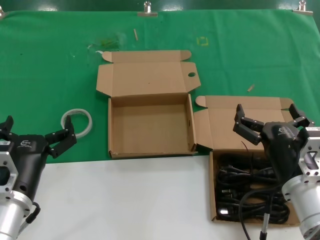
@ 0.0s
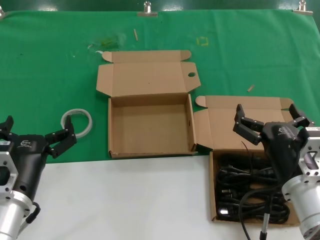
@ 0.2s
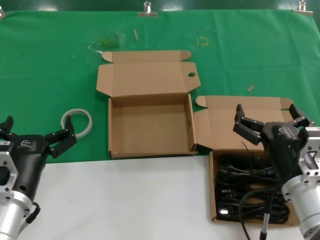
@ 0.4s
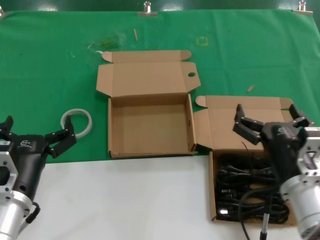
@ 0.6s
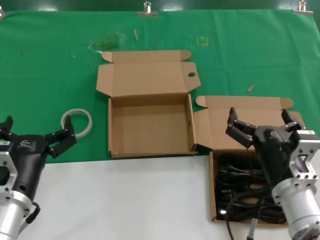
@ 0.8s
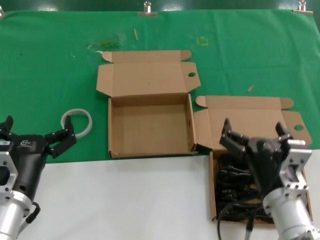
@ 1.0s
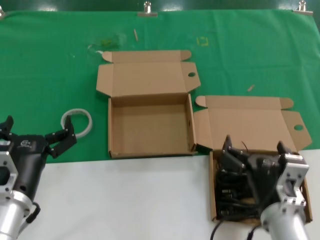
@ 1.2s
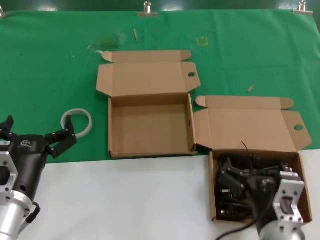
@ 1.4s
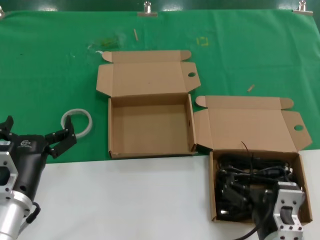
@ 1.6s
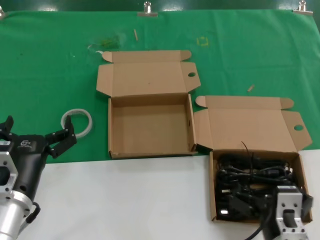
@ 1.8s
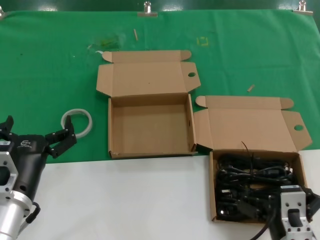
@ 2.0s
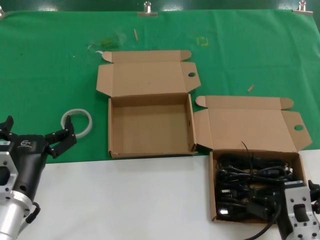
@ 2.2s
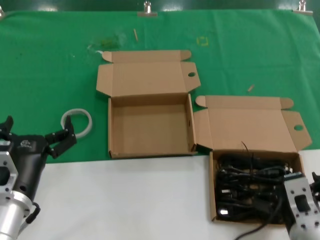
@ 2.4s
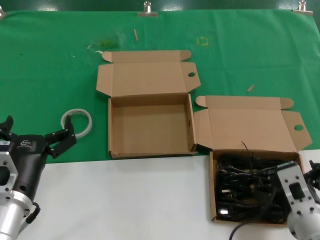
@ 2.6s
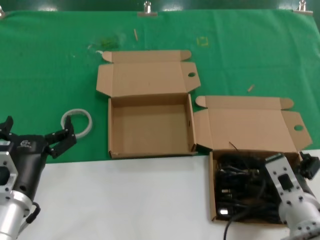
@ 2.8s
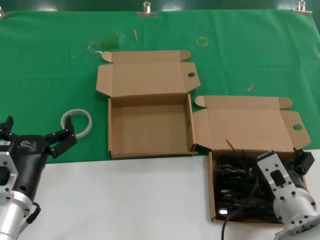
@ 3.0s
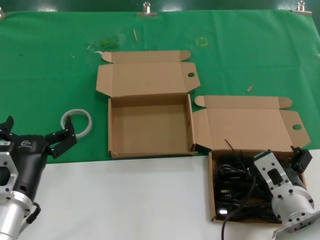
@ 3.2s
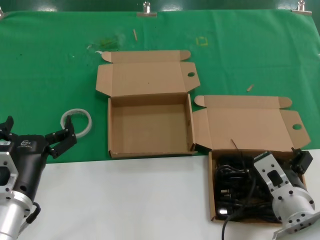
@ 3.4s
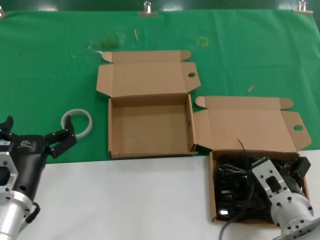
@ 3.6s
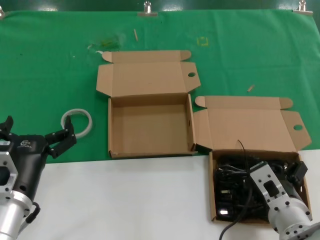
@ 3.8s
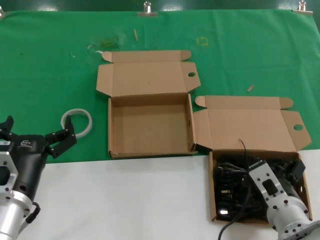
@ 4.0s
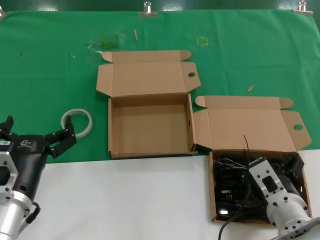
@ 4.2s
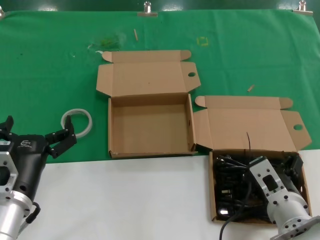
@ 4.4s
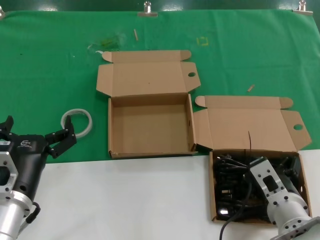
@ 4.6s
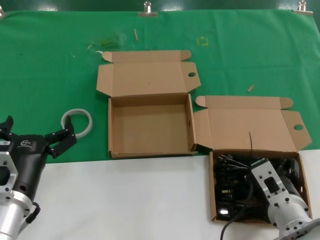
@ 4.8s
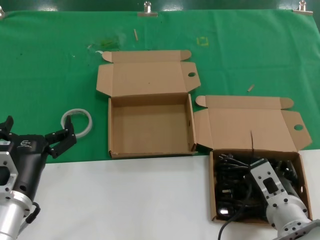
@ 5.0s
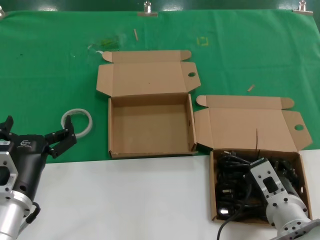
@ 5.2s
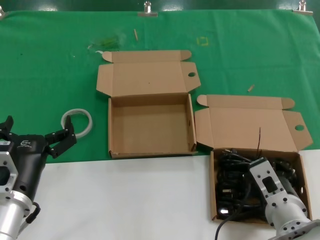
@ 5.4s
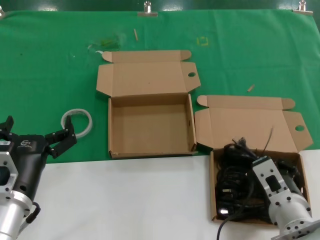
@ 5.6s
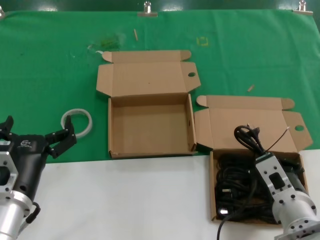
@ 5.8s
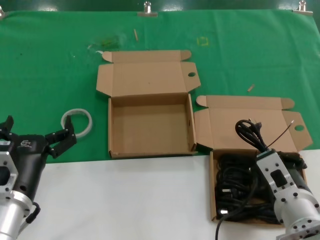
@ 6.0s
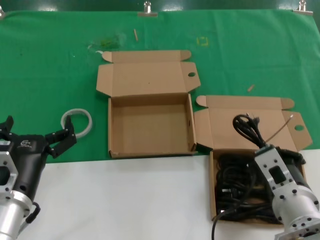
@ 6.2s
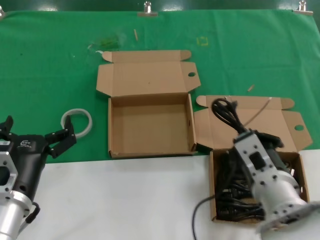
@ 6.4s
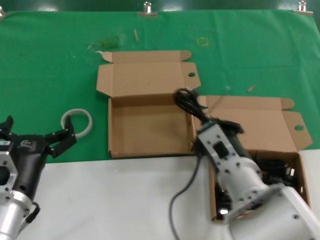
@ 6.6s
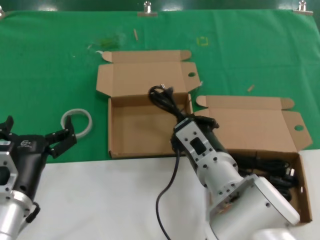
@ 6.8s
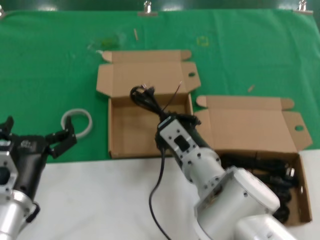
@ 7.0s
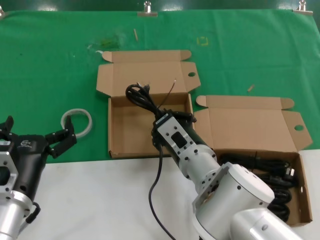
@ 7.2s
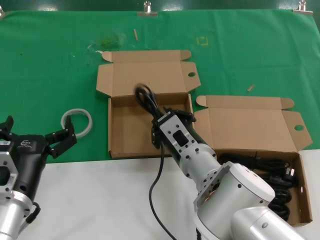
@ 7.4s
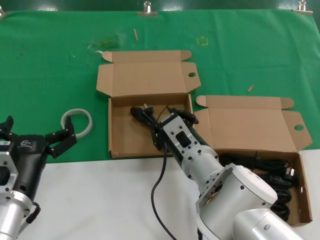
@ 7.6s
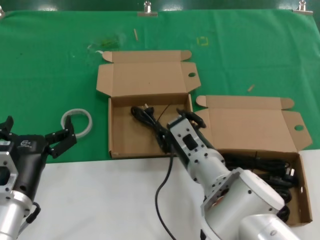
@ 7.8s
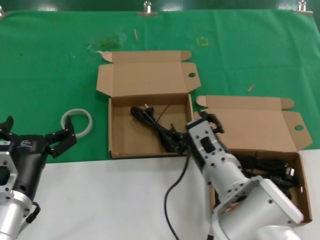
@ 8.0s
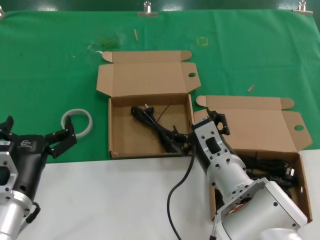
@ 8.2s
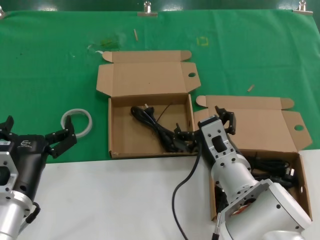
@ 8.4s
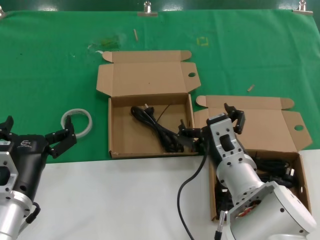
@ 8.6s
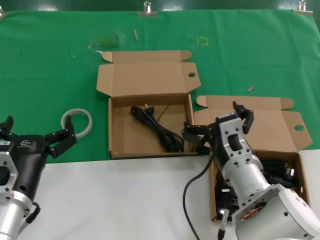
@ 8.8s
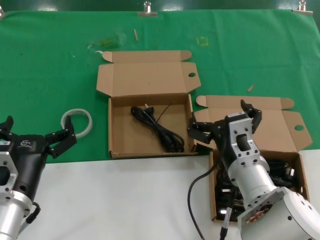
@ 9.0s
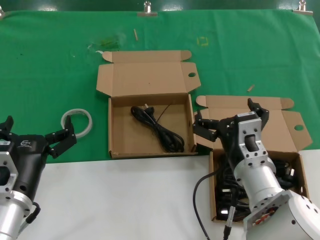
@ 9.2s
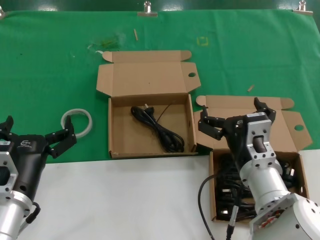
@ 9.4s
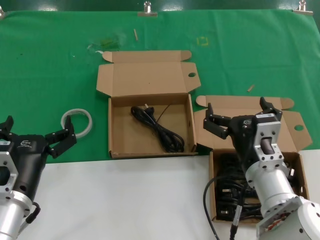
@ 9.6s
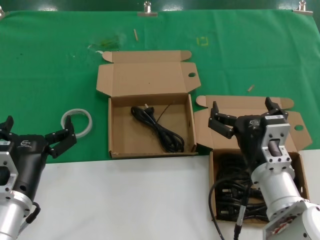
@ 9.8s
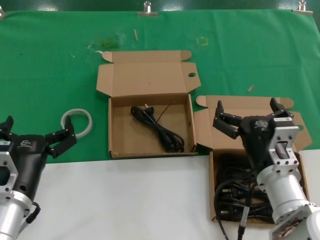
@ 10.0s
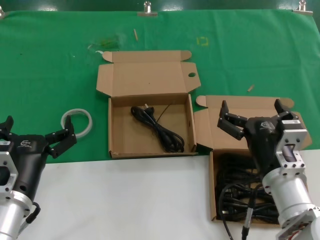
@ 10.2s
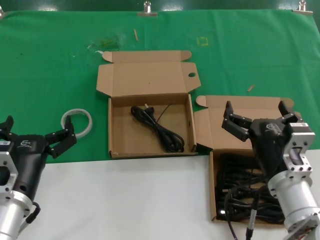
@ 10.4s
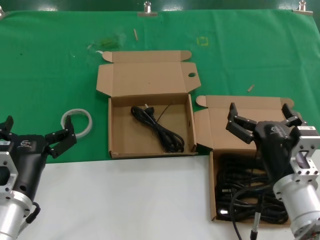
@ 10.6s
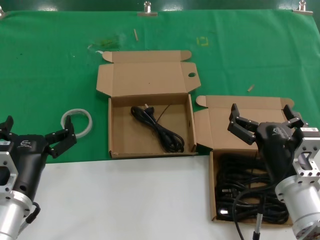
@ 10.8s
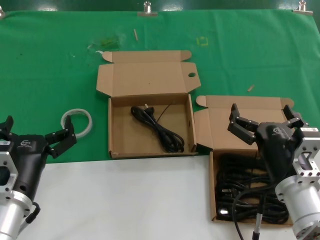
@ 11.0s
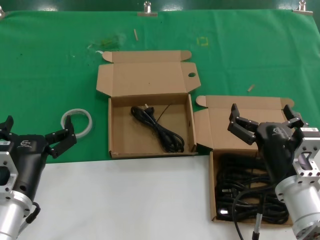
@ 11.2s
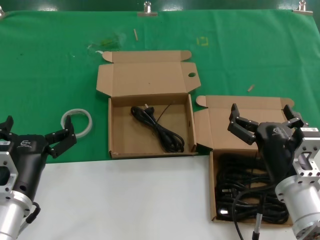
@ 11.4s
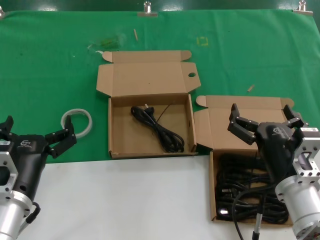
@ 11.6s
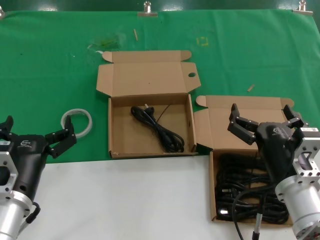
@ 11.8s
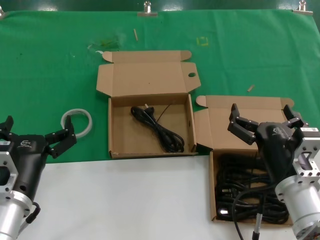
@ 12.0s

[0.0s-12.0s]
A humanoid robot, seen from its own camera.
Task of the whole recording: take the parts from the box containing them and put them into an empty box.
Step, 0.0s to 5.4s: Grasp the data cable.
Step, 5.8s to 7.4s: Place the data cable in the another box.
0.0s to 1.6s: The right hand is displaced backward and to the left by some 10 cm.
1.6s to 3.0s: The right hand is displaced forward by about 10 cm.
3.0s to 6.0s: The hands move only a little.
6.0s to 7.6s: The right hand moves to the left and forward, roughly 15 cm.
7.6s to 9.0s: The right hand heads to the right, covering roughly 5 cm.
9.0s to 10.4s: The right hand moves to the right, approximately 5 cm.
10.4s to 12.0s: There are only small adjustments of the hands.

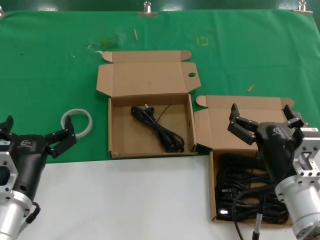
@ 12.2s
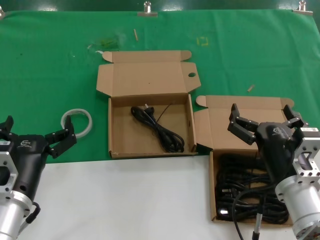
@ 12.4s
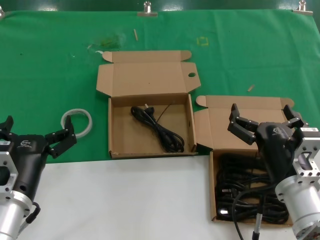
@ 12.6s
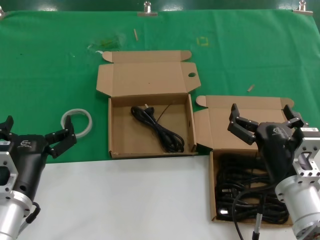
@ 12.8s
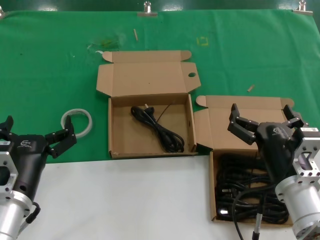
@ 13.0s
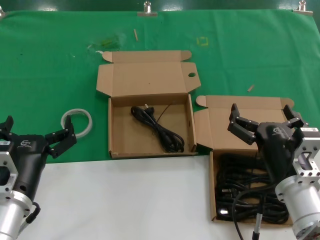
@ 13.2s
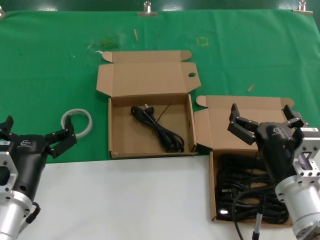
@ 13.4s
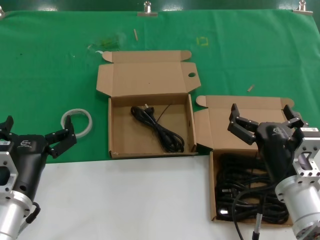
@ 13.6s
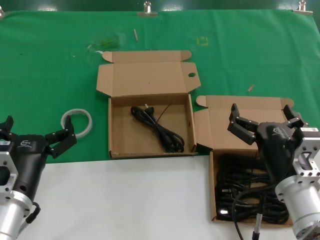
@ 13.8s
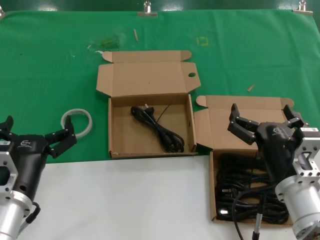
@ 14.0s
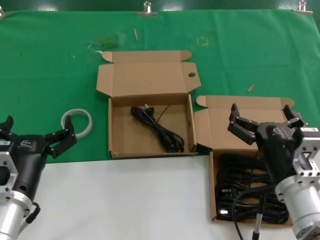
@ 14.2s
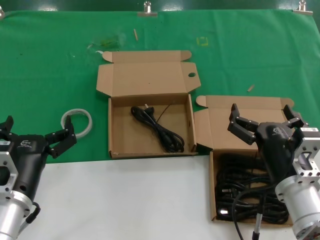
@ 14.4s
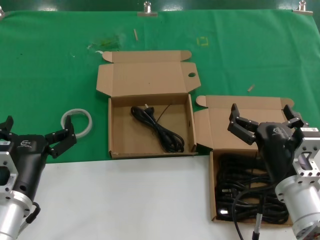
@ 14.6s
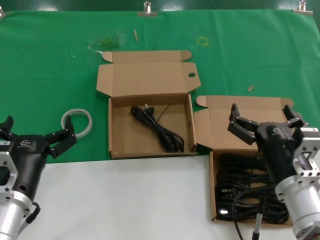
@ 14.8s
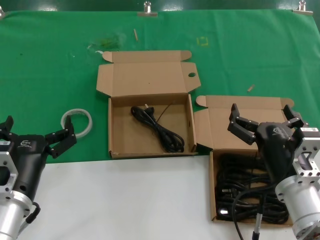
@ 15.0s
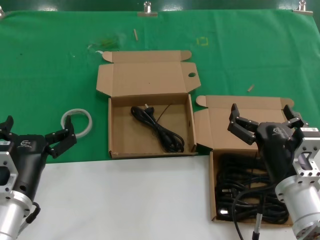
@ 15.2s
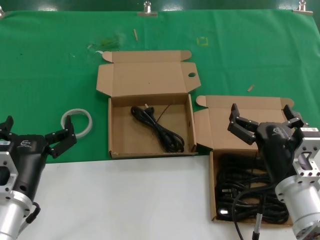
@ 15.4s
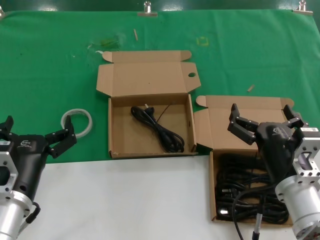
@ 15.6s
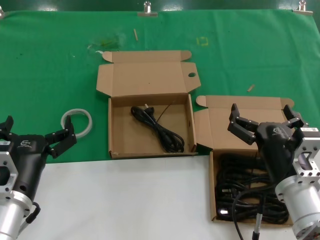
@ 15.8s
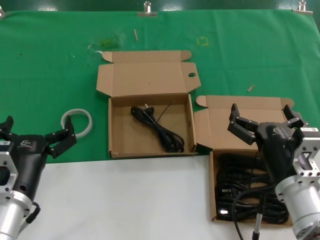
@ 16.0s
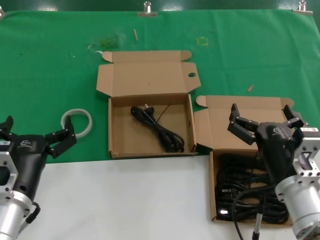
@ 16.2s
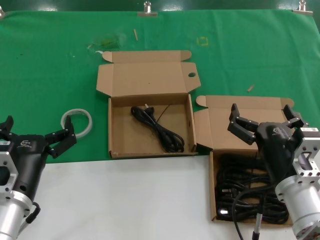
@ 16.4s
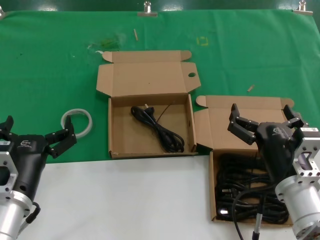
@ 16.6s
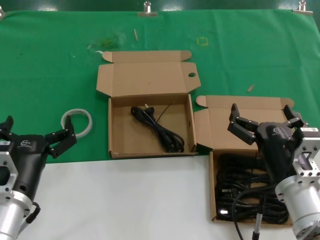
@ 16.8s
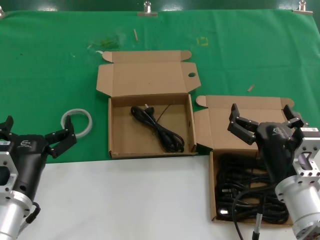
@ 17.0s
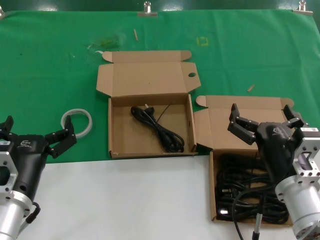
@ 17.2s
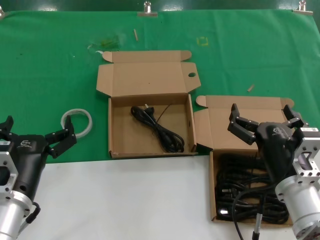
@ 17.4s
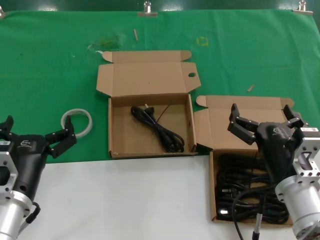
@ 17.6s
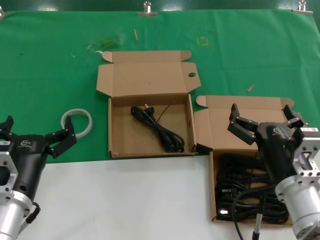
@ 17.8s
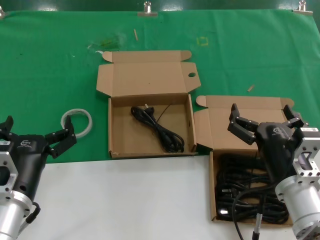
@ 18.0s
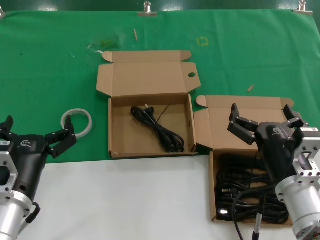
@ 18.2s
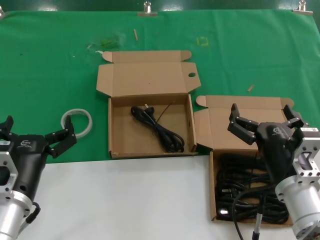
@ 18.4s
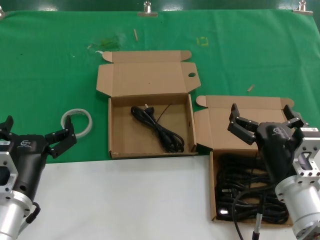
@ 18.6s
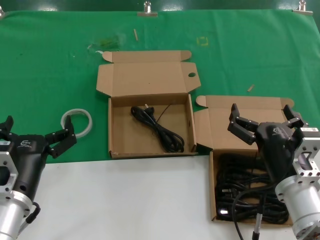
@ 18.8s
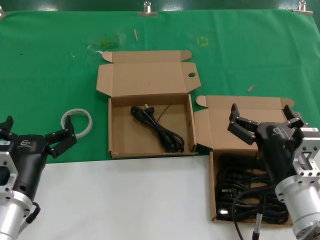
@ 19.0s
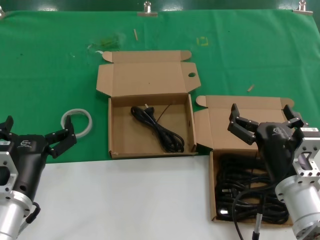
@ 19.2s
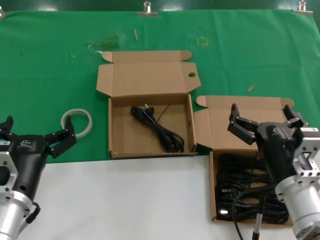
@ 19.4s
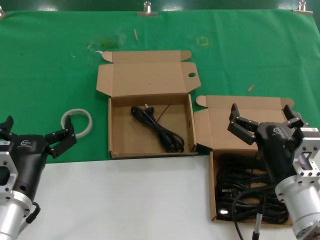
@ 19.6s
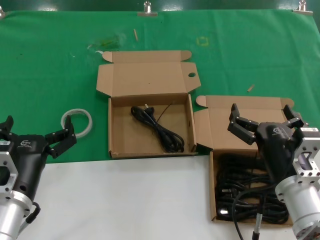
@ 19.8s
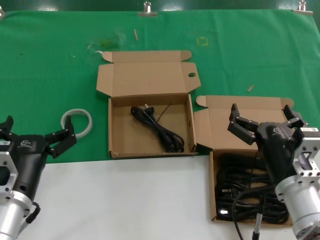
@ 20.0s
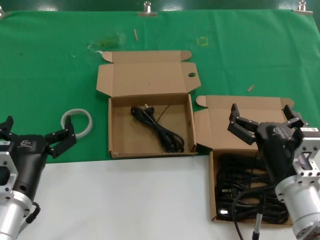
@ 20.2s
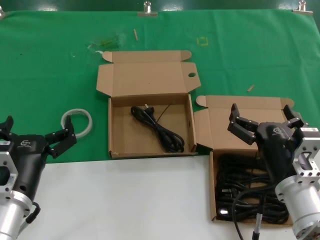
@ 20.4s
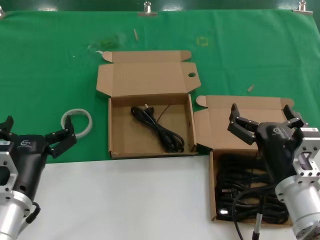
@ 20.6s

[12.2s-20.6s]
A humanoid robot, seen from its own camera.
Task of the whole recording: take the parts from the box containing them and put them into an empty box.
12.2s to 20.6s: The two hands keep their place.

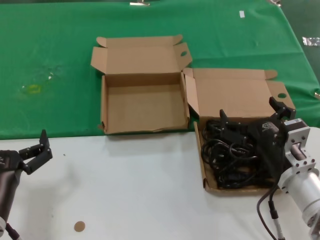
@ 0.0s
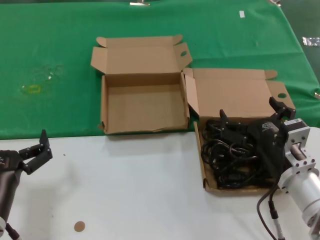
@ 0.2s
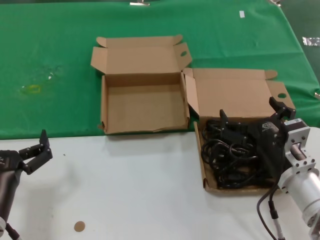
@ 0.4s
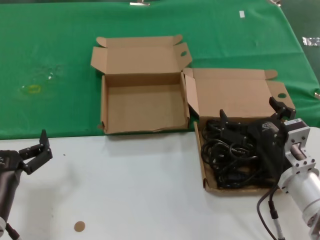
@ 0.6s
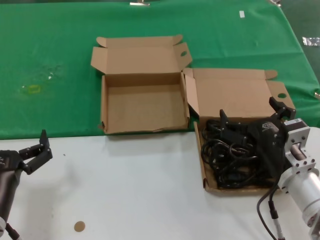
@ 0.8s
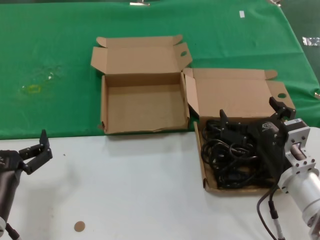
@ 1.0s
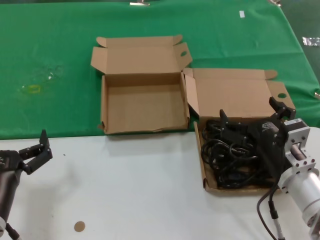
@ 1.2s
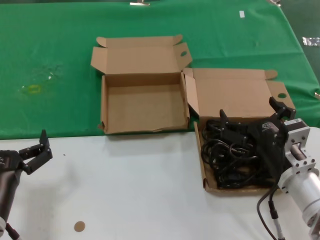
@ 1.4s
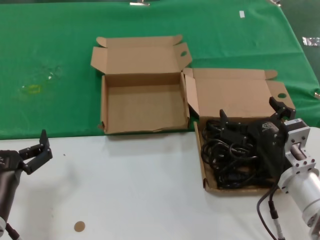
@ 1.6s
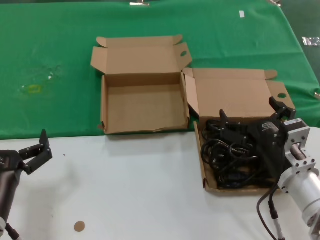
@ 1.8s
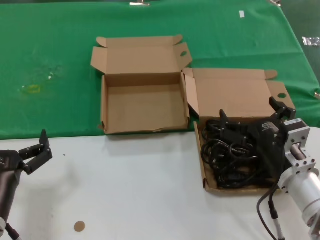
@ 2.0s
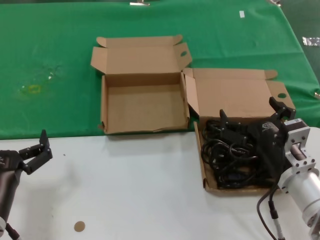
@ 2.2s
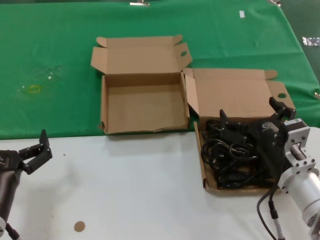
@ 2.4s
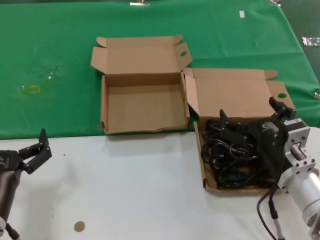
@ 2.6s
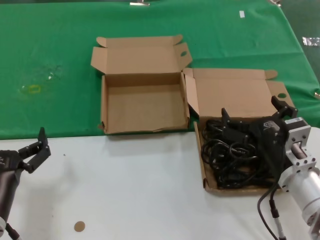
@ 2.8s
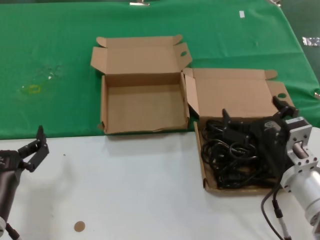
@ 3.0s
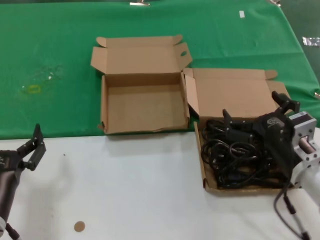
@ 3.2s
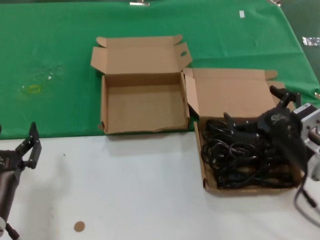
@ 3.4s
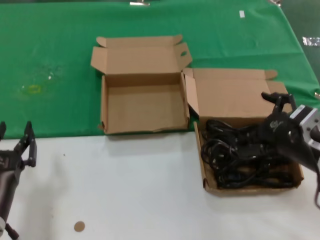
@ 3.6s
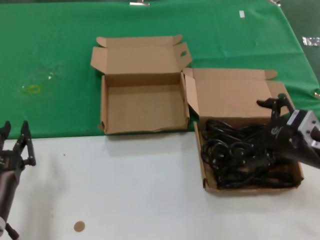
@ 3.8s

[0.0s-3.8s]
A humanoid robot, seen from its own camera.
Task of the whole recording: take the parts from the box containing them and put them into an empty box.
0.0s to 2.6s: Both hands stay put.
2.6s to 3.8s: The right hand goes approximately 10 cm upward and to the right.
